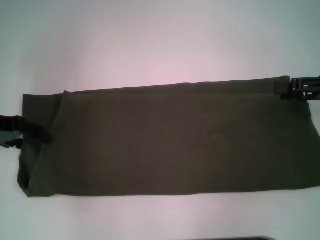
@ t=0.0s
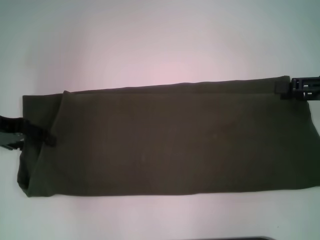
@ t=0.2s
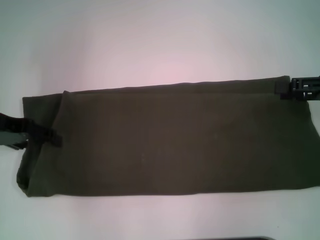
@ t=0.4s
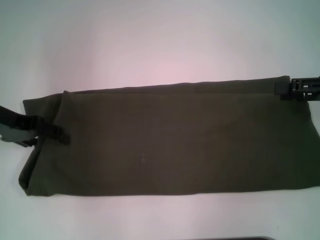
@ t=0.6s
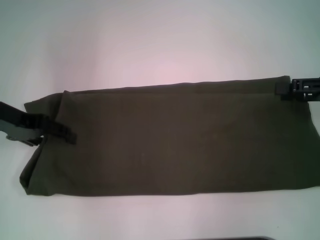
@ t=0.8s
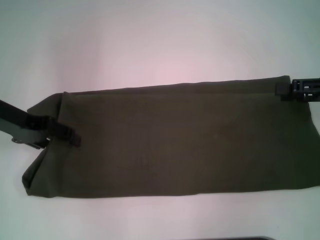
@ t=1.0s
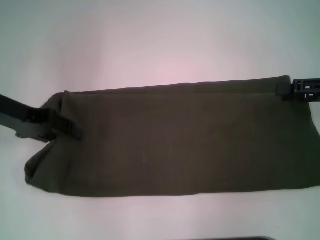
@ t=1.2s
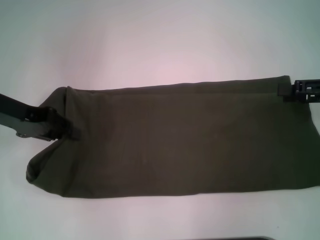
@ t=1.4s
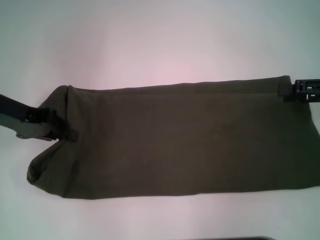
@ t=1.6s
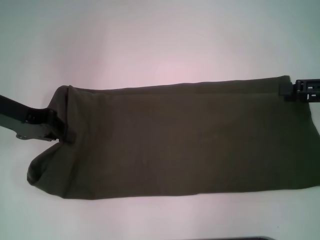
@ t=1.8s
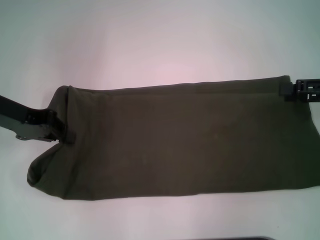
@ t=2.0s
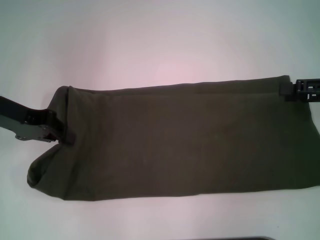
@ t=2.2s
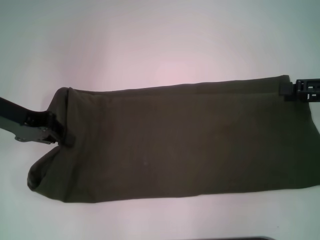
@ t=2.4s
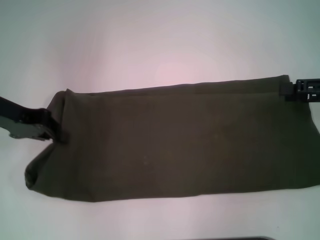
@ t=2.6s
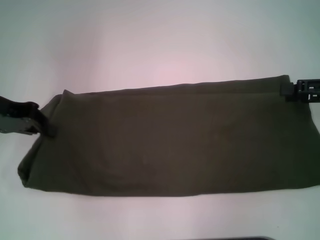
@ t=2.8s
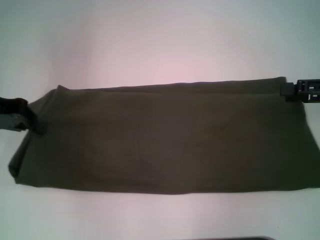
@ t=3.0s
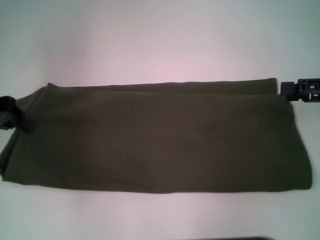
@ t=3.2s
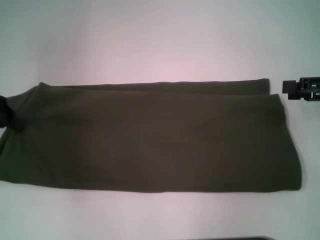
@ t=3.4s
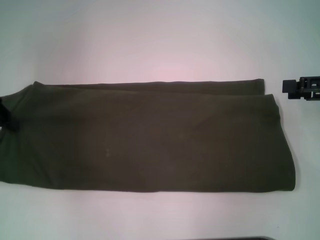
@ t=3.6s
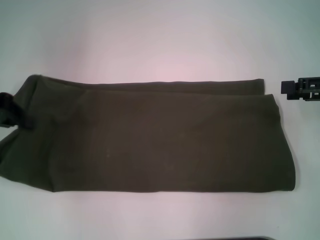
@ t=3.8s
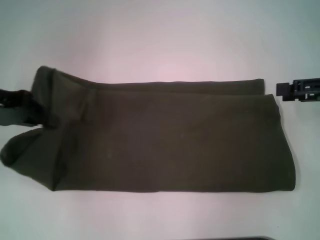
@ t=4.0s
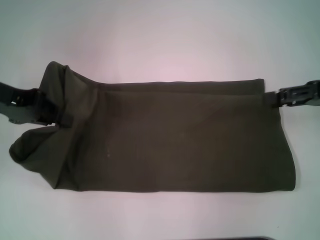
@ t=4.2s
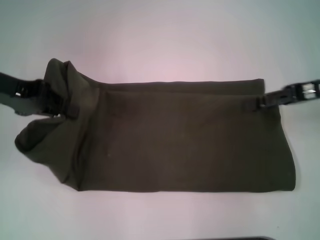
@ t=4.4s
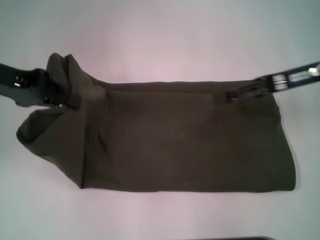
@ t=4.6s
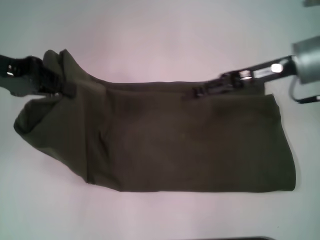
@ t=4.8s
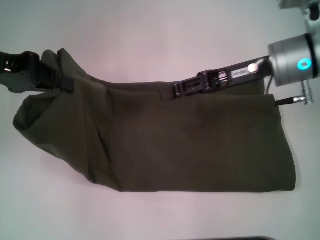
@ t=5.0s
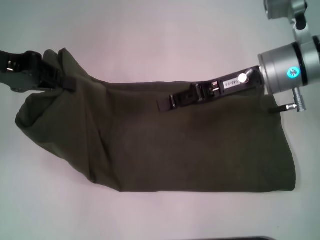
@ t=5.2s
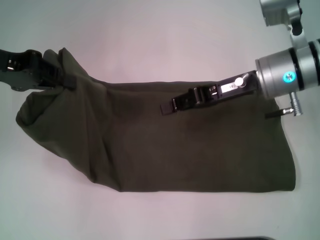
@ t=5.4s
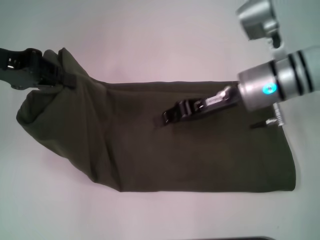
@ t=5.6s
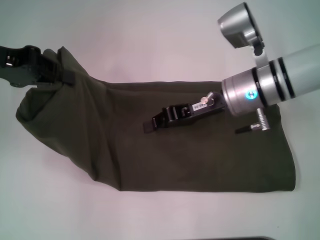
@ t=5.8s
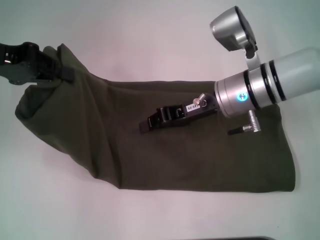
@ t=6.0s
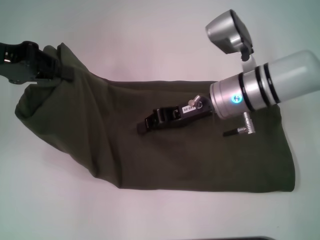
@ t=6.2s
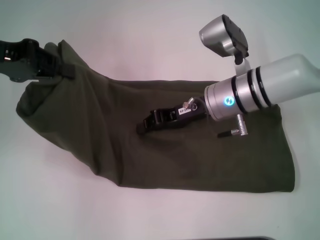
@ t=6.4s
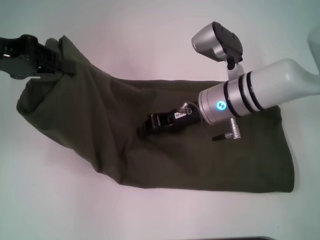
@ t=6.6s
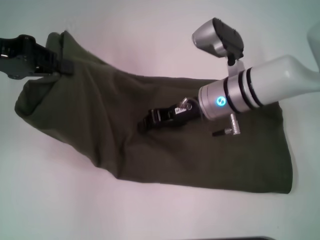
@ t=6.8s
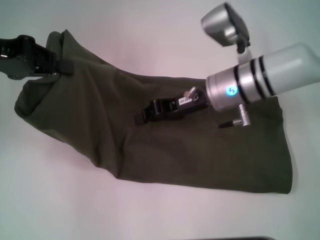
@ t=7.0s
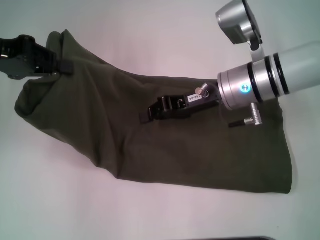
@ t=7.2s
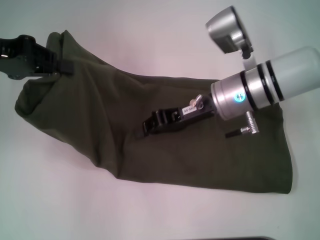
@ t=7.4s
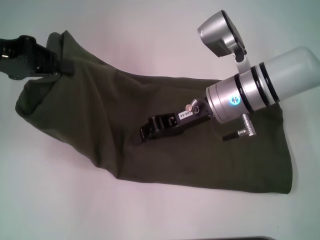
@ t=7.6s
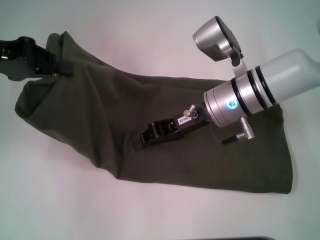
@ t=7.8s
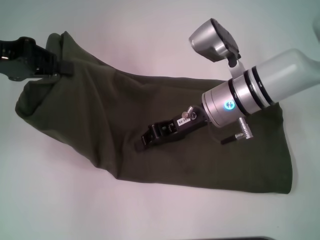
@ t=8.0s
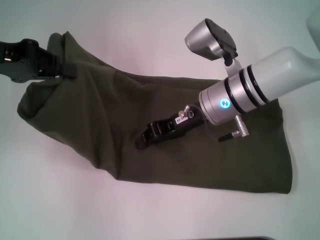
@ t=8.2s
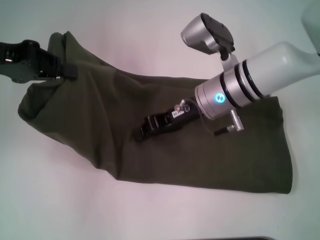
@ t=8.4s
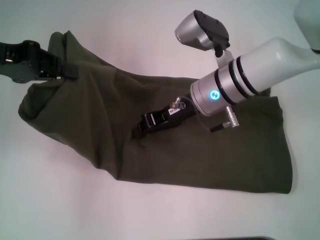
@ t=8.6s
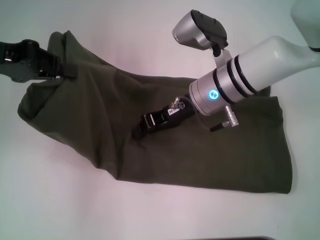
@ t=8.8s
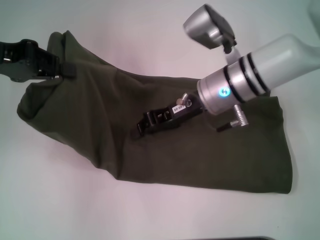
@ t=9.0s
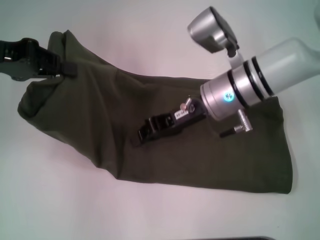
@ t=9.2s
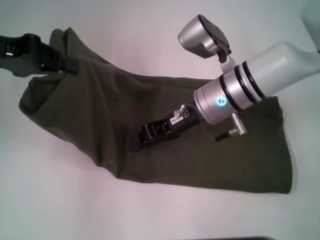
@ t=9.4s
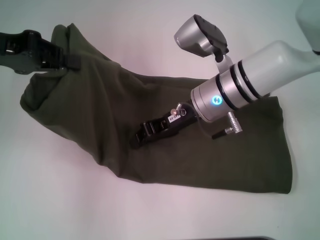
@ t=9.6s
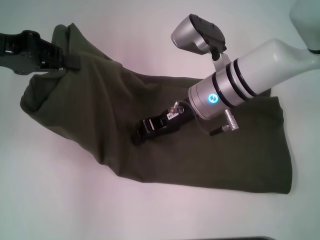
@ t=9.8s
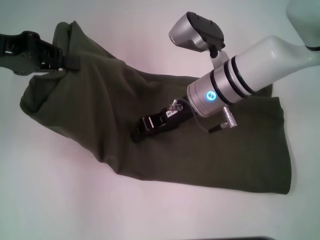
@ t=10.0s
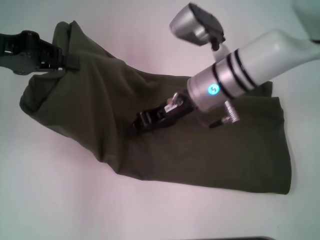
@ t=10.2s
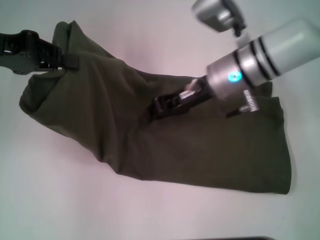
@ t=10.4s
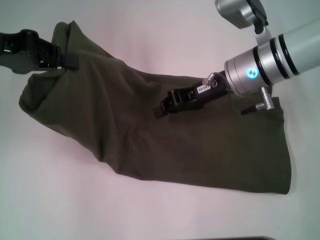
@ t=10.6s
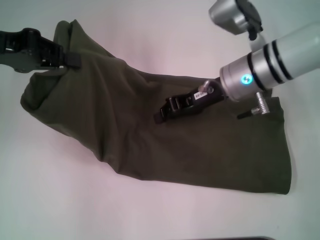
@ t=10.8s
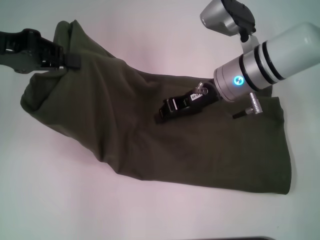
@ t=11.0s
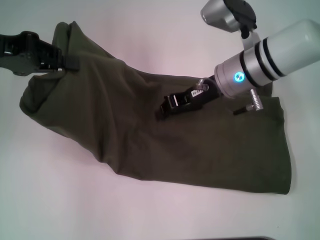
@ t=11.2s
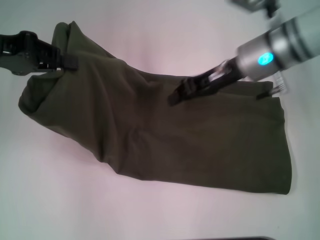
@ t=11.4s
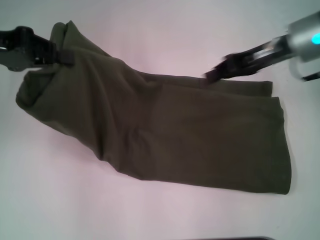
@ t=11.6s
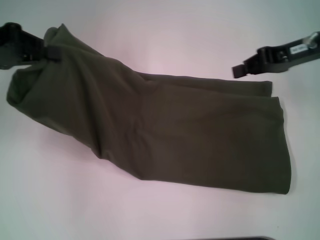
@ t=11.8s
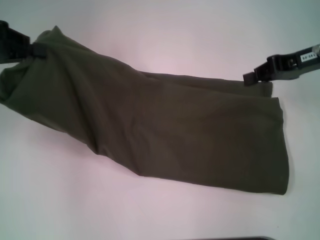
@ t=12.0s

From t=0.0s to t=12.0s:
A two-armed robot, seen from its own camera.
From t=0.0s to t=1.6s: The left gripper closes up.
From t=1.6s to t=3.0s: There are only small adjustments of the grippers.
From t=3.0s to t=4.4s: The right gripper heads to the left, covering approximately 5 cm.
From t=4.4s to t=6.0s: The right gripper shifts roughly 15 cm to the left, and closes.
From t=6.0s to t=10.4s: There are only small adjustments of the grippers.
From t=10.4s to t=12.0s: The right gripper heads to the right, covering approximately 15 cm.

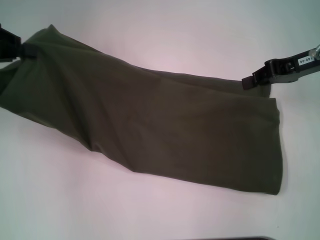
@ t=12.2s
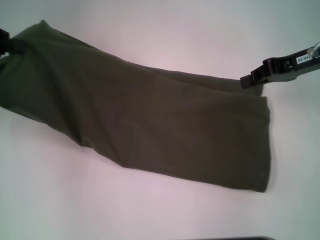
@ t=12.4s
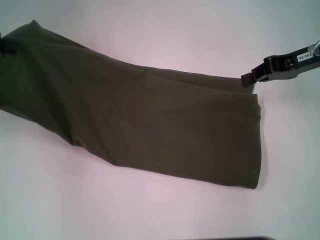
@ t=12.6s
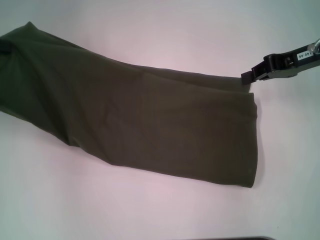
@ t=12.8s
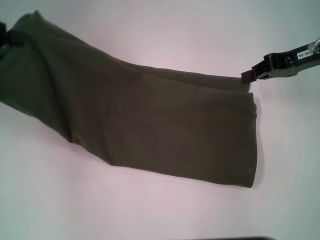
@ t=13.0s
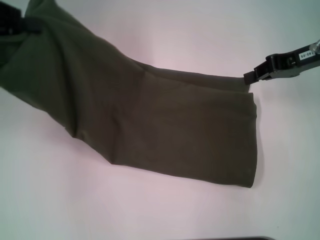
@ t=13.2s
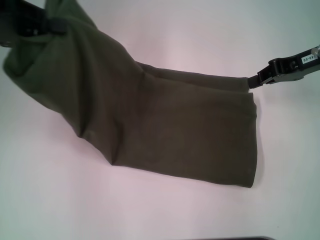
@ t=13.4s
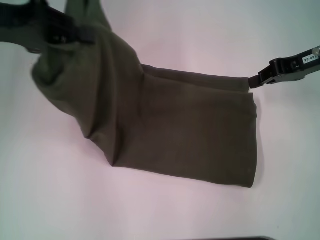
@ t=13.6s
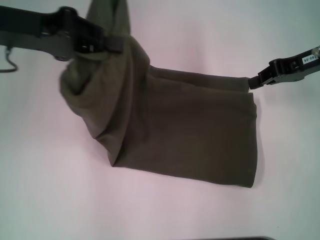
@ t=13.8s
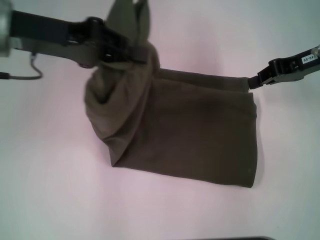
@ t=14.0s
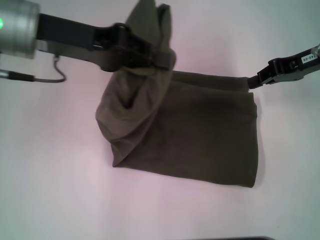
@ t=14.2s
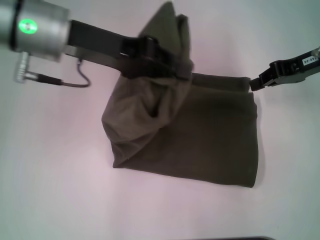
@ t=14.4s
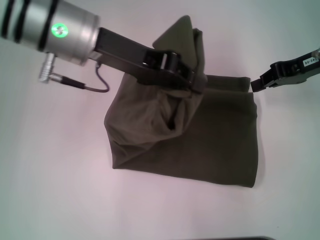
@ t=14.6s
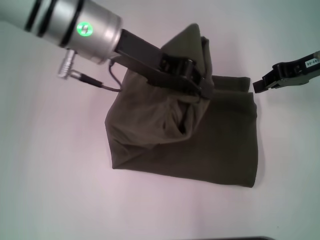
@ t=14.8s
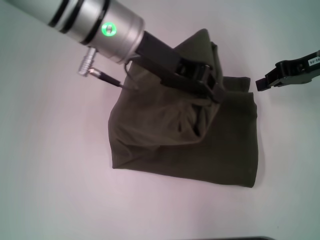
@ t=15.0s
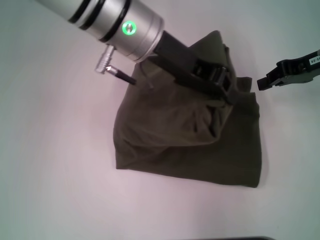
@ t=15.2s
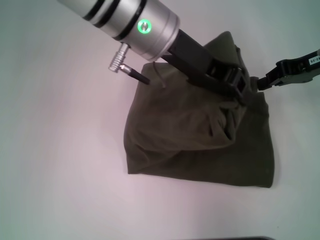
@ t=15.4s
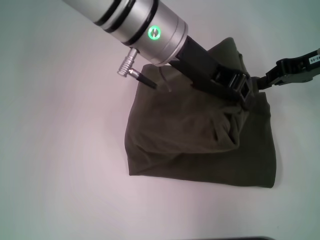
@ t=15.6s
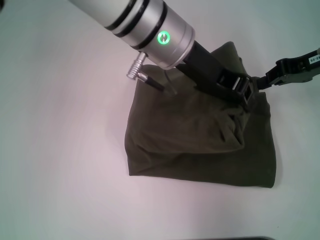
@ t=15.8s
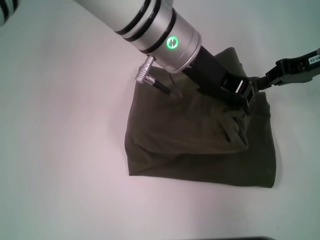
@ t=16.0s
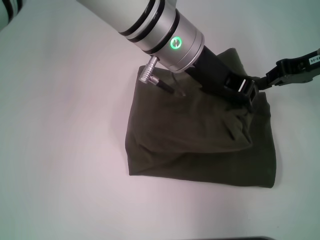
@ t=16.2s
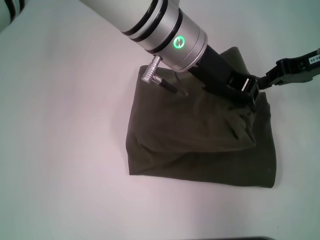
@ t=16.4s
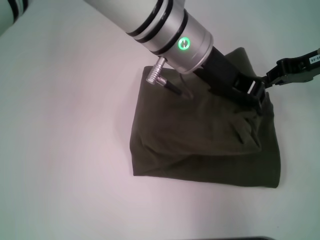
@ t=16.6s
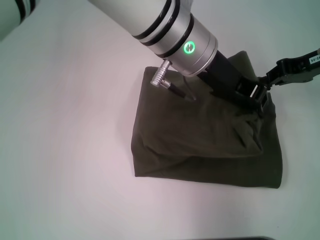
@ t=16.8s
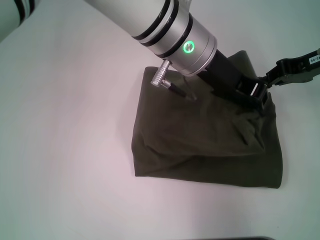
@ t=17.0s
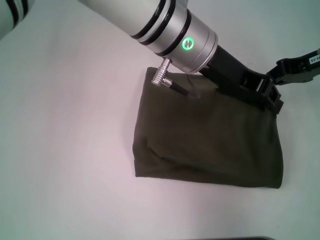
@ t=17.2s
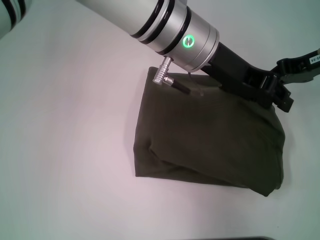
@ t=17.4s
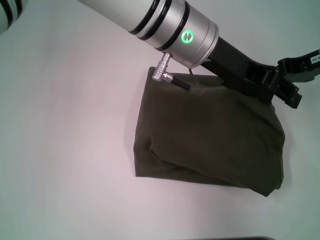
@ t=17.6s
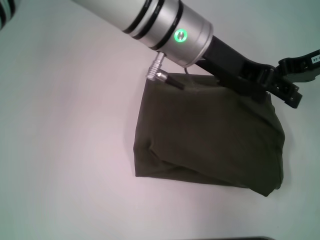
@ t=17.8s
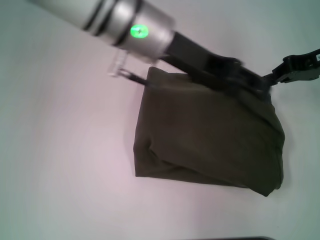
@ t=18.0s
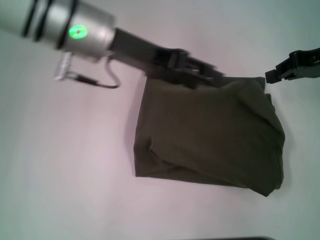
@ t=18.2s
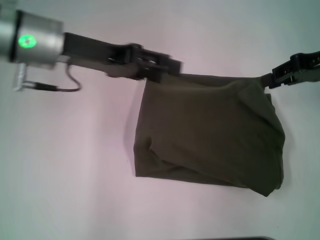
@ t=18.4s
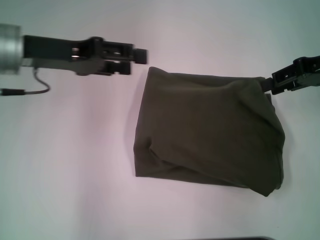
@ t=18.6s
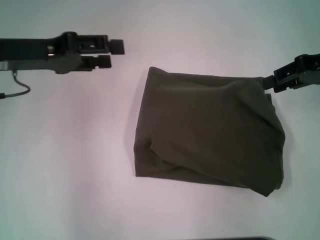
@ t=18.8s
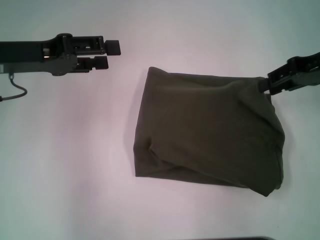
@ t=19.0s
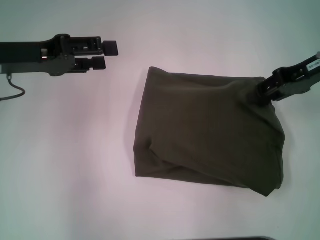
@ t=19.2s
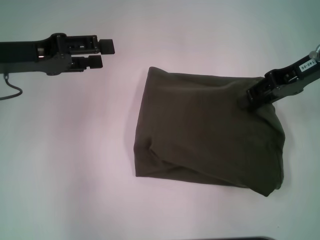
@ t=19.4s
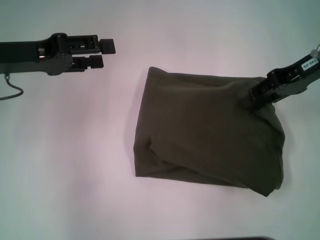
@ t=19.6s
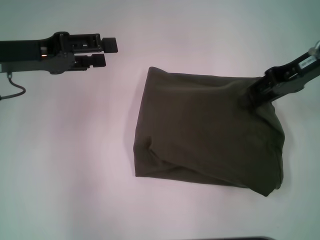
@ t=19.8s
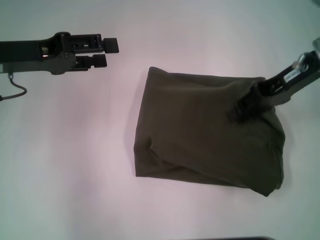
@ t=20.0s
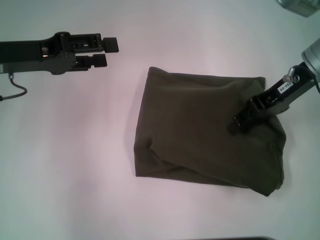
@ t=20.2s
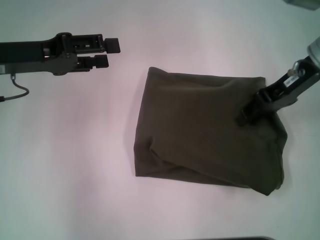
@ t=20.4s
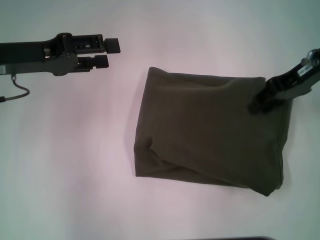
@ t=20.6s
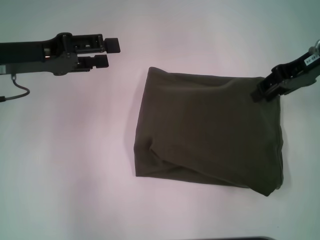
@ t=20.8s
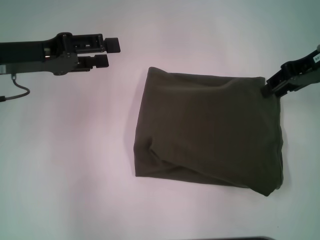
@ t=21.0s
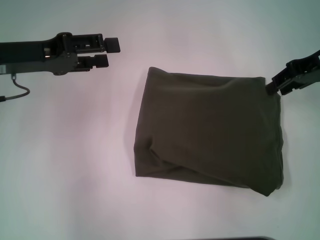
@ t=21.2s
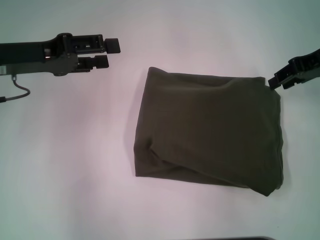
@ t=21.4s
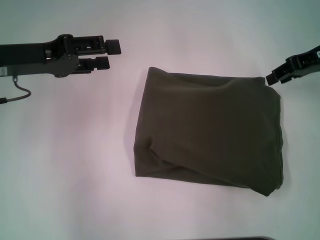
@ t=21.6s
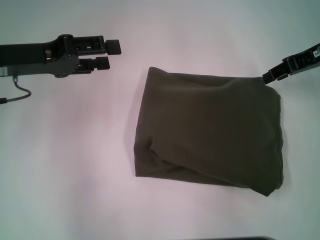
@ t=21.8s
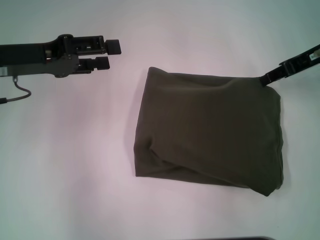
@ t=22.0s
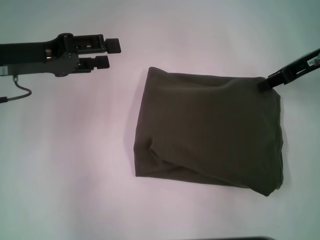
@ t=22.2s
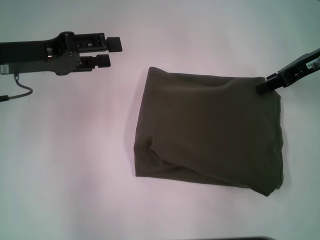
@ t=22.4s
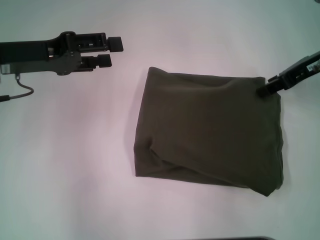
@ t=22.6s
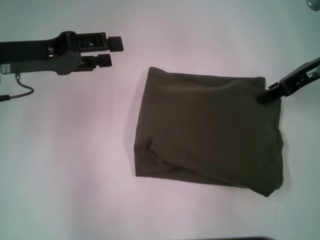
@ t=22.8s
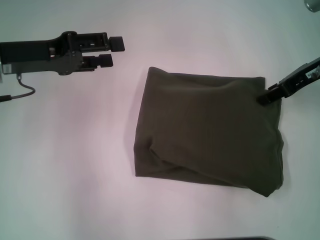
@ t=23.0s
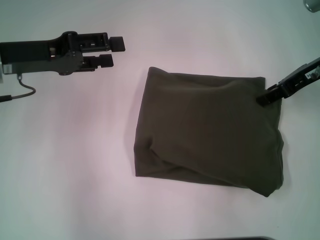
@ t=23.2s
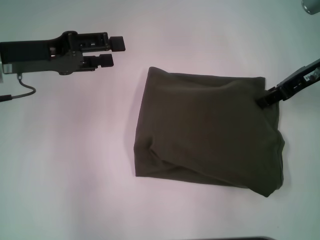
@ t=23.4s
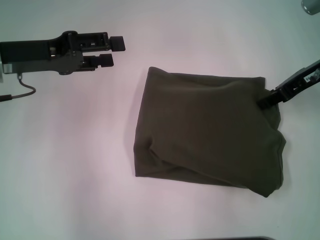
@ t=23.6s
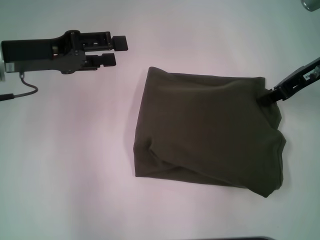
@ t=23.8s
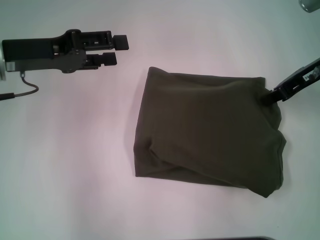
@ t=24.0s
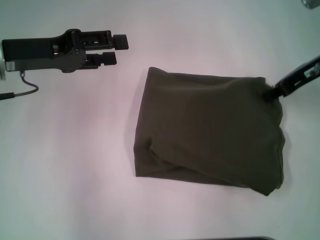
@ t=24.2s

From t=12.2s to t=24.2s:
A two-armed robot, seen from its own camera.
Step, from t=12.2s to t=17.8s: Fold the clothes with your left hand.
From t=12.2s to t=13.8s: The left gripper heads to the right, covering some 10 cm.
From t=13.8s to t=15.2s: The left gripper goes approximately 20 cm to the right.
From t=15.2s to t=16.6s: The left gripper moves to the right, approximately 5 cm.
From t=16.6s to t=18.2s: The left gripper travels to the left by roughly 10 cm, and opens its fingers.
From t=18.2s to t=19.8s: The left gripper goes some 15 cm to the left. Meanwhile the right gripper heads to the left, covering some 5 cm, and opens.
From t=19.8s to t=21.2s: There are only small adjustments of the grippers.
From t=22.6s to t=24.2s: The right gripper closes up.
